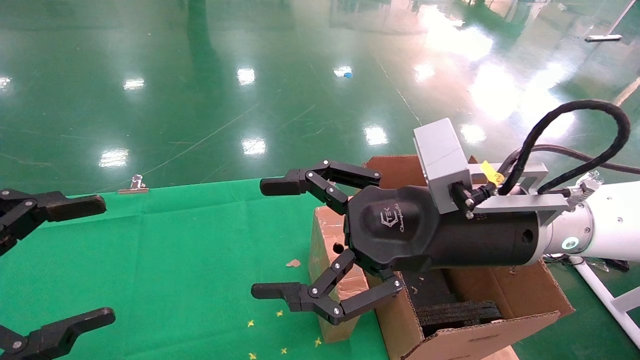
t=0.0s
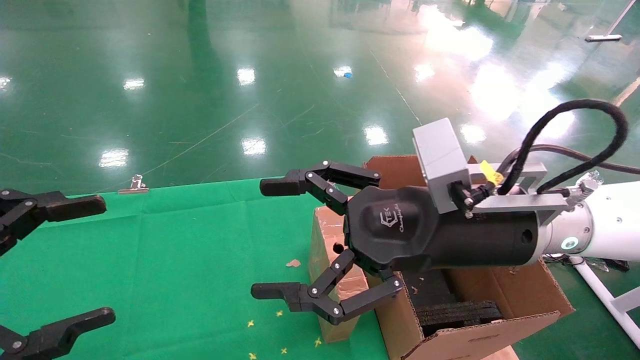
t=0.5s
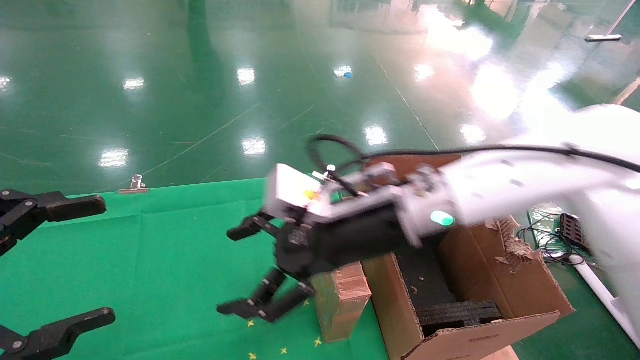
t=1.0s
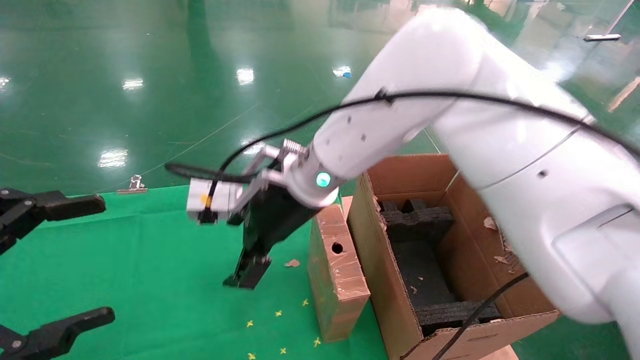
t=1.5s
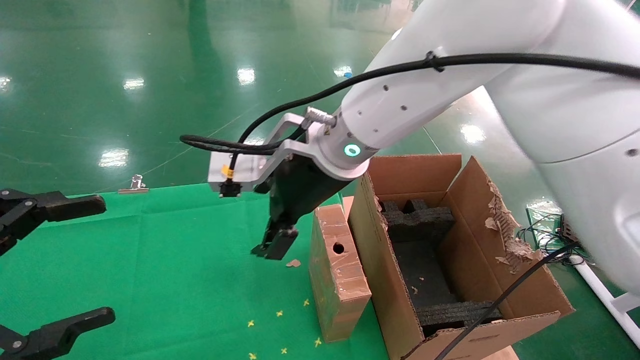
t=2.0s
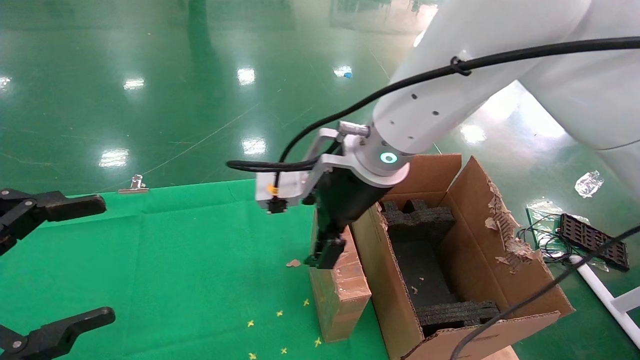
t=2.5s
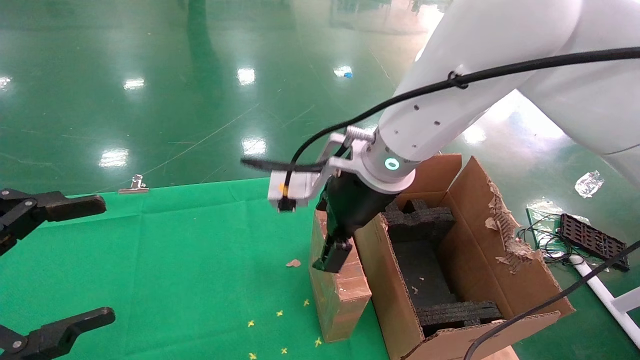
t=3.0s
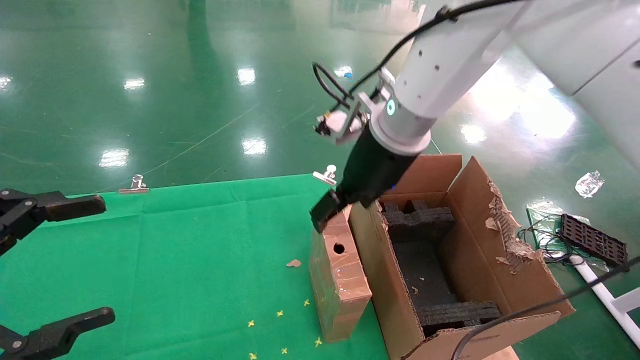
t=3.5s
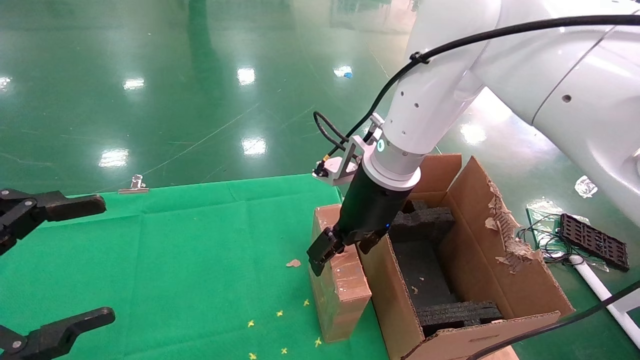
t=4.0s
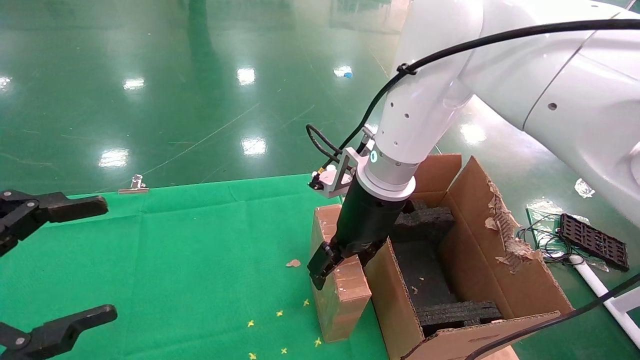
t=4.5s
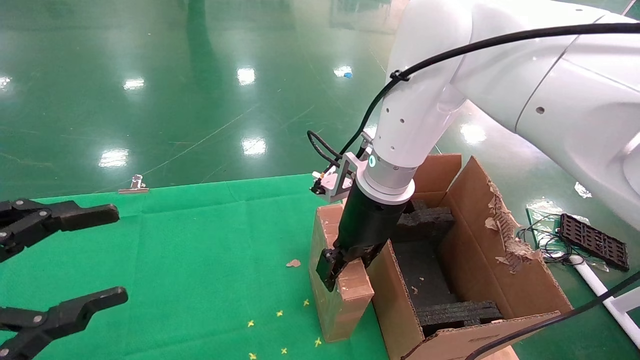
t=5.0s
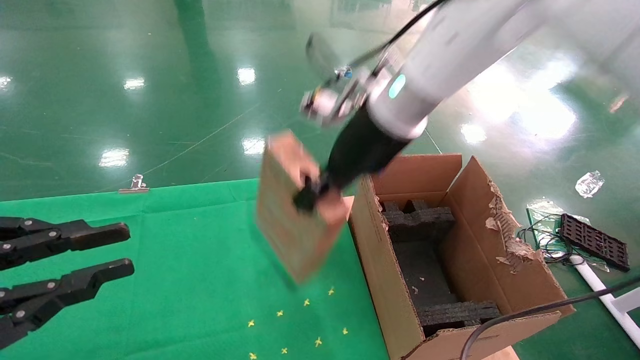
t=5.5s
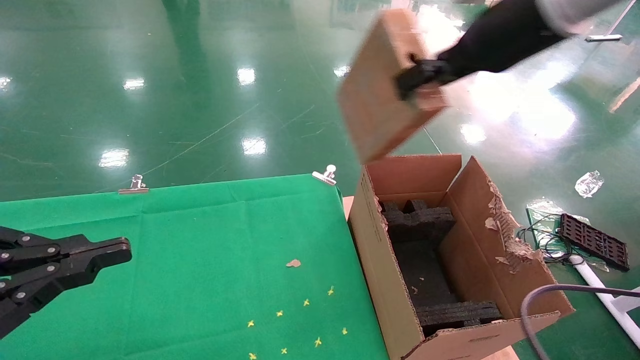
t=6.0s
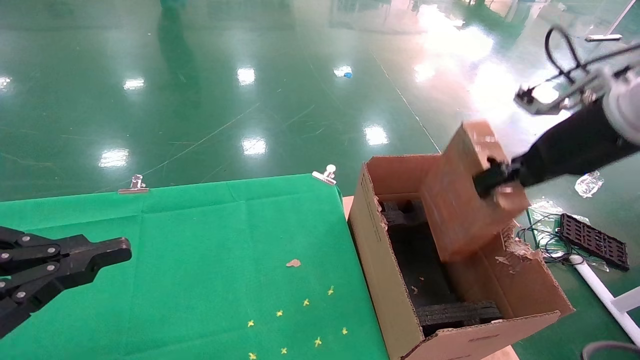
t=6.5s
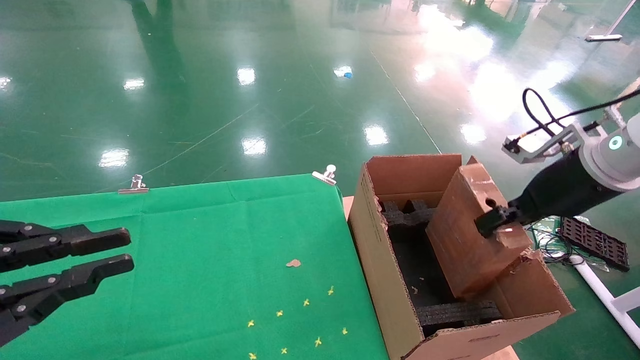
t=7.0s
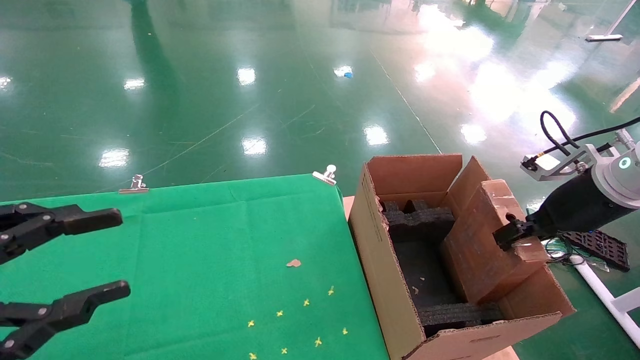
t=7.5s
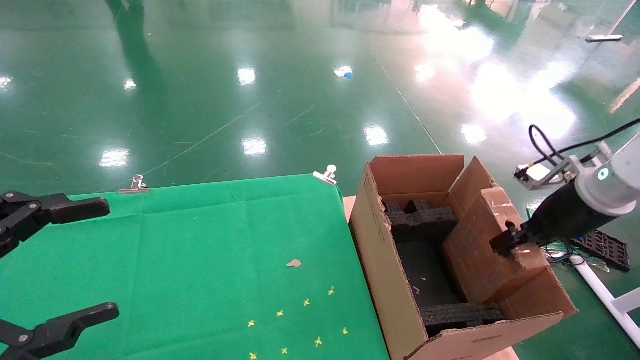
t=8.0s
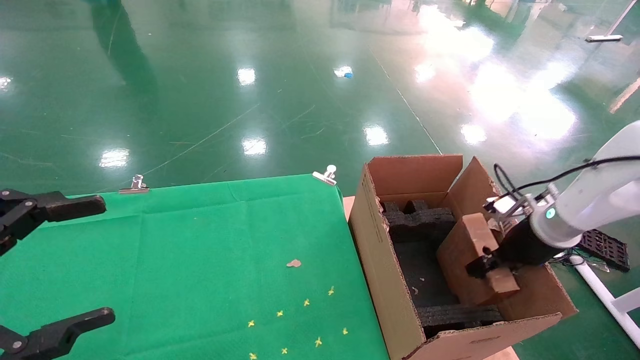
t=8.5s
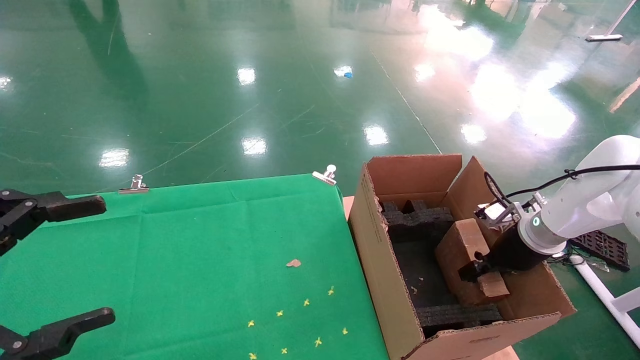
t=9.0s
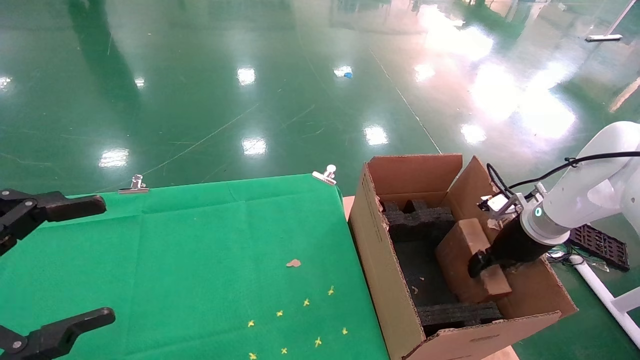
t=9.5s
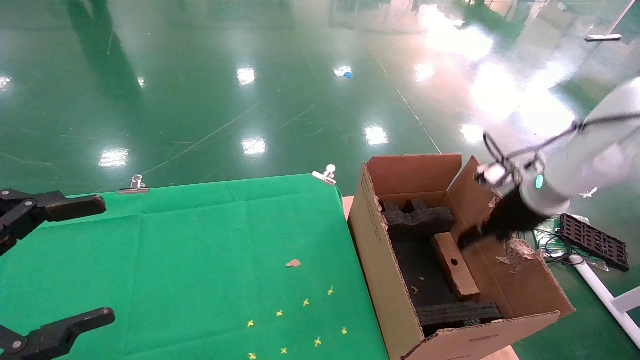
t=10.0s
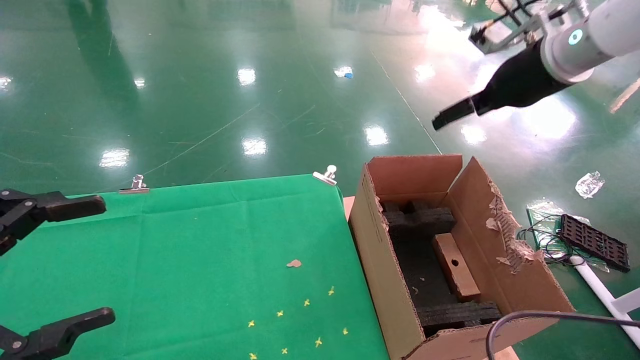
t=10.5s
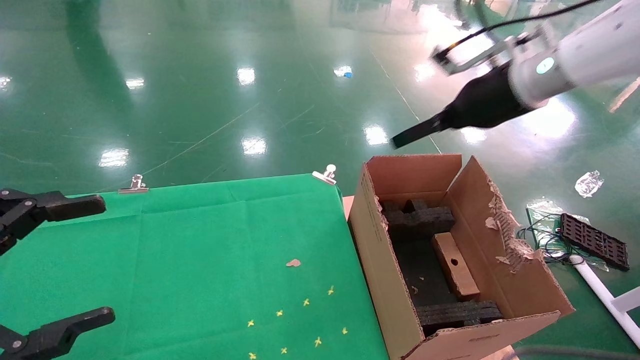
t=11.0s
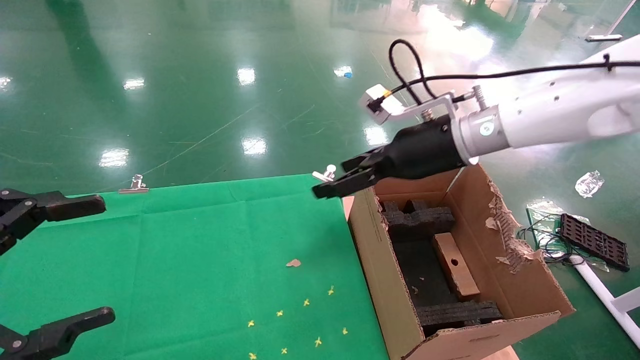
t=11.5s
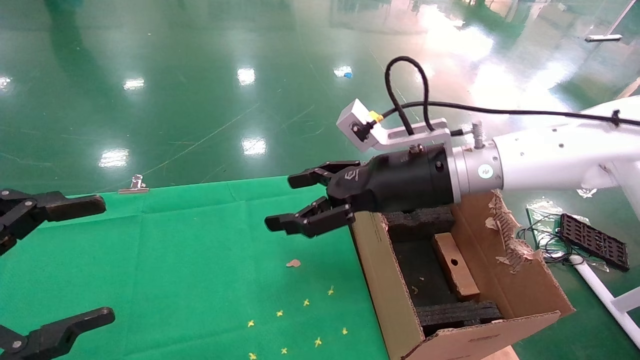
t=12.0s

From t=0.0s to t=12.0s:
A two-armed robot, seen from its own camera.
Task of the whole recording: using a robotic arm to pick up a cardboard box and palace it the carton.
Step, from t=1.0s to t=5.0s: Pick up the mouse and the power cord paper box.
Step, from t=5.5s to t=9.5s: Place the mouse and the power cord paper box into the container.
From t=0.0s to t=2.0s: The right gripper is displaced to the left and forward by about 20 cm.
From t=2.0s to t=4.0s: The right gripper travels to the right by some 10 cm.
From t=4.0s to t=6.0s: The right gripper heads upward and to the right, covering approximately 20 cm, and closes its fingers; the left gripper closes.
From t=6.0s to t=8.0s: The left gripper opens; the right gripper heads downward and to the right, covering roughly 25 cm.
From t=8.0s to t=10.0s: The right gripper goes some 5 cm forward, travels downward and back again, some 10 cm each way, and opens its fingers.
From t=10.0s to t=12.0s: The right gripper moves to the left, some 20 cm.

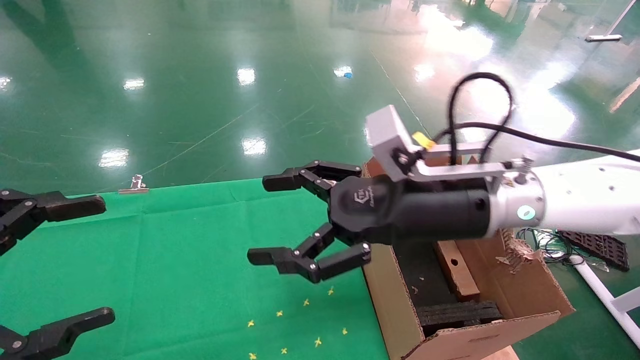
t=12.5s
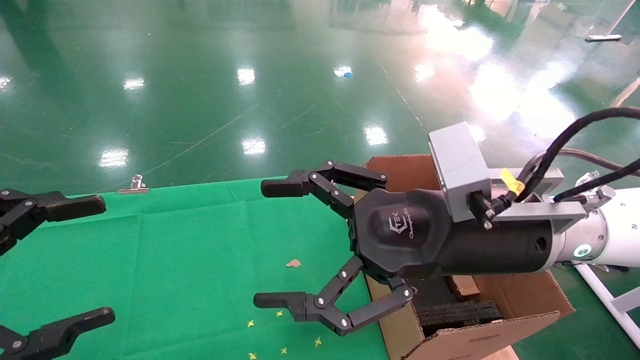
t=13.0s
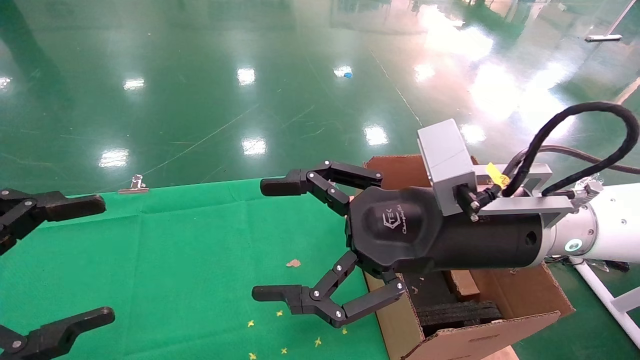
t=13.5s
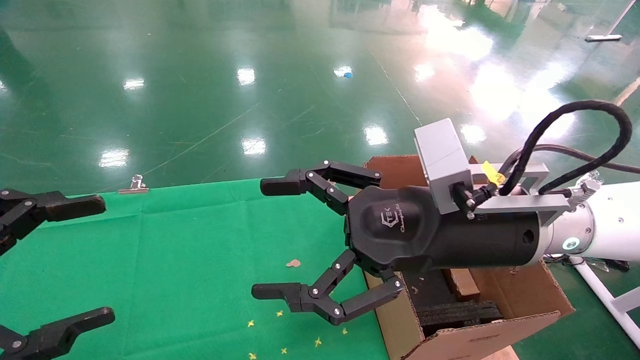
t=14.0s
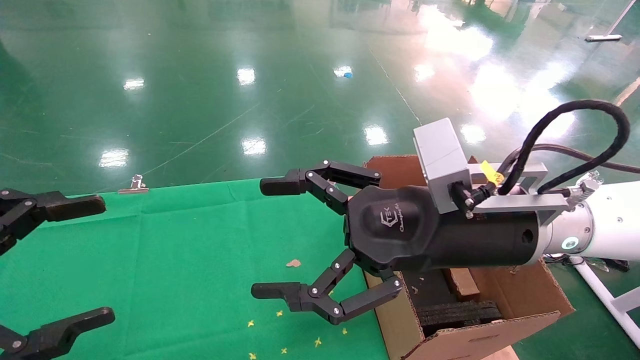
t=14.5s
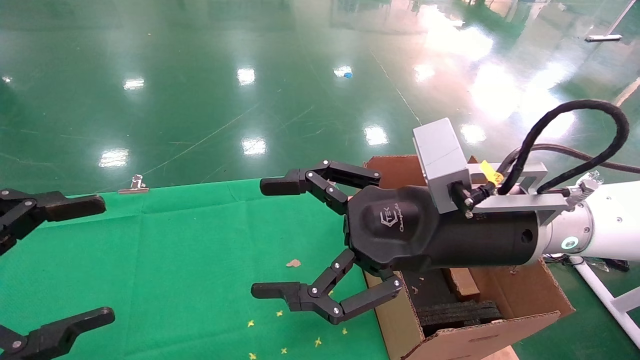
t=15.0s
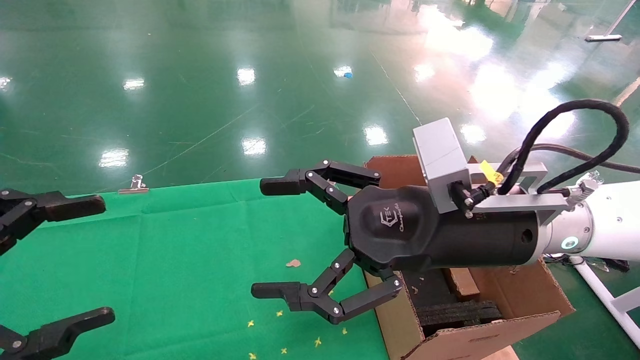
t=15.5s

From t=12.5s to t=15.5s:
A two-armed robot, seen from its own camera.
Task of the whole recording: using a robotic arm to pick up a cardboard box and palace it the carton.
From t=12.5s to t=14.0s: There are only small adjustments of the grippers.
From t=14.0s to t=15.5s: Both grippers stay about where they are.

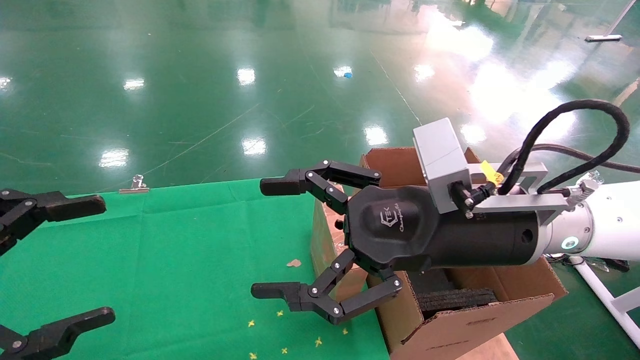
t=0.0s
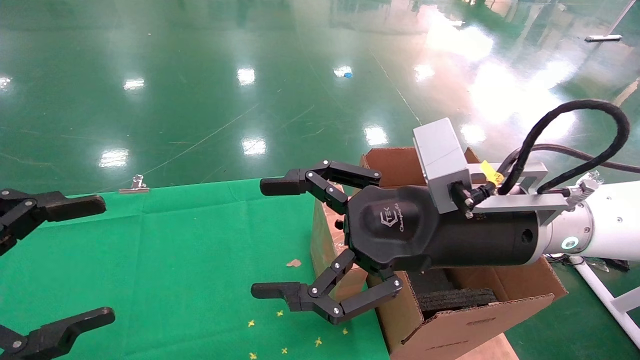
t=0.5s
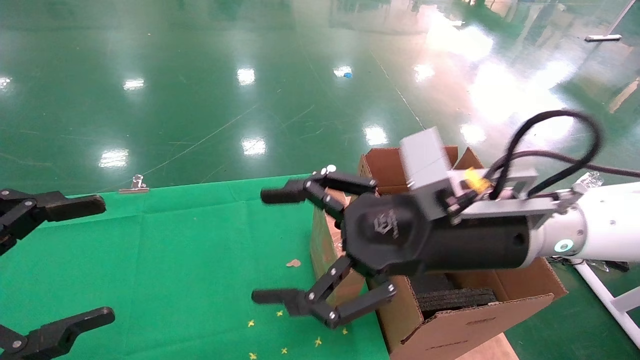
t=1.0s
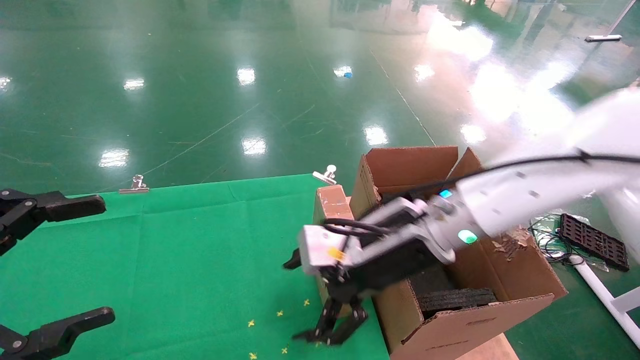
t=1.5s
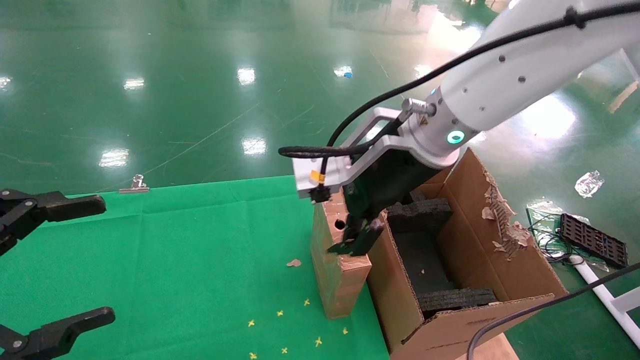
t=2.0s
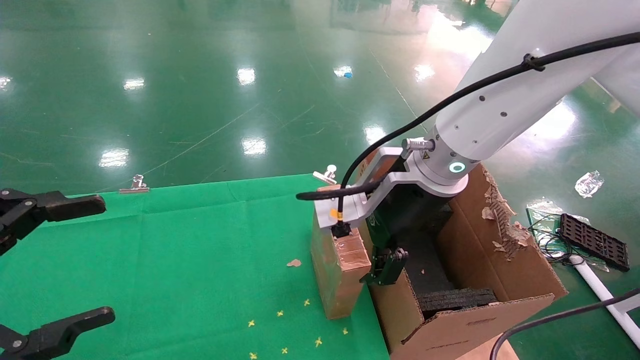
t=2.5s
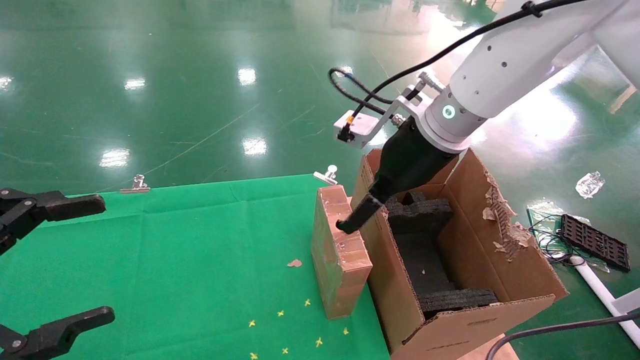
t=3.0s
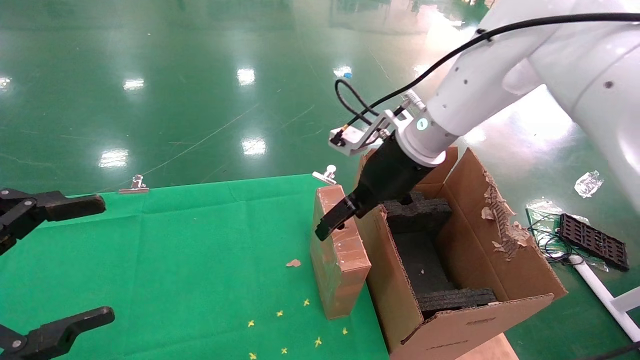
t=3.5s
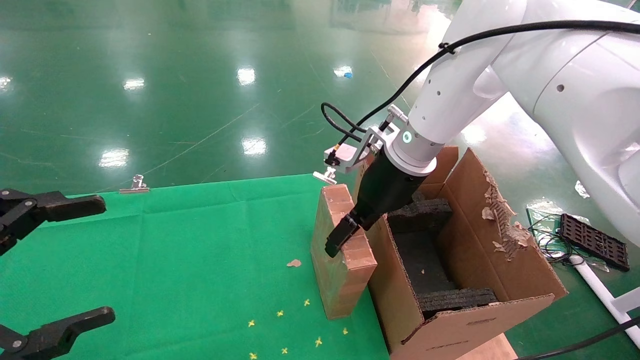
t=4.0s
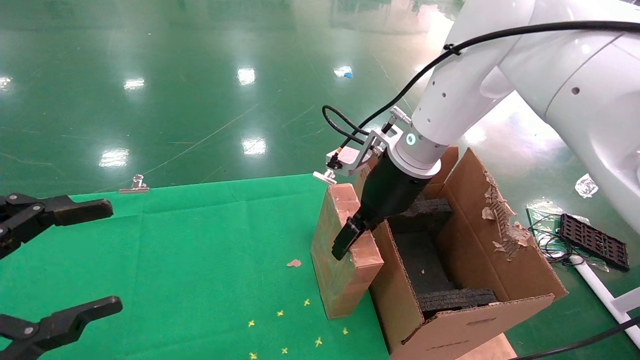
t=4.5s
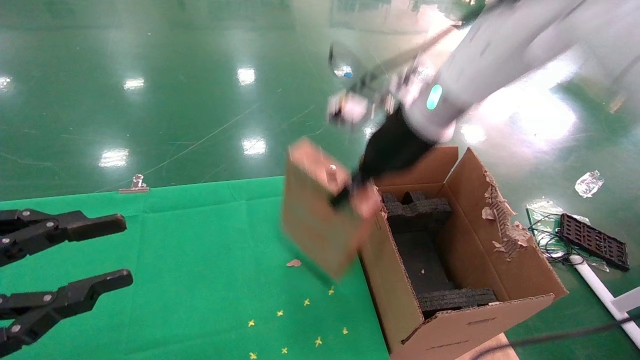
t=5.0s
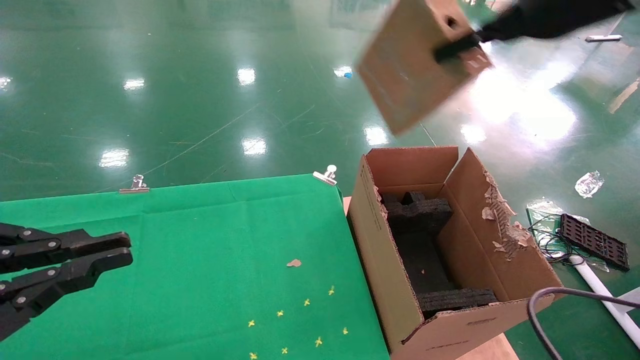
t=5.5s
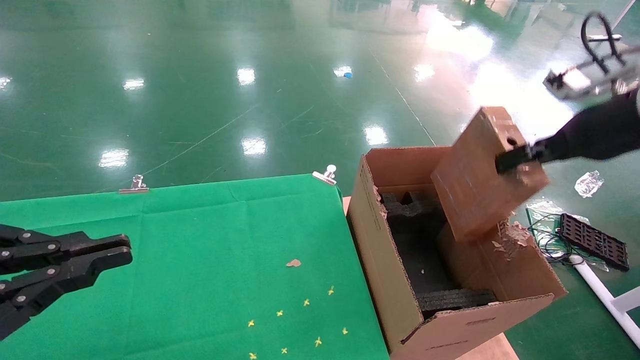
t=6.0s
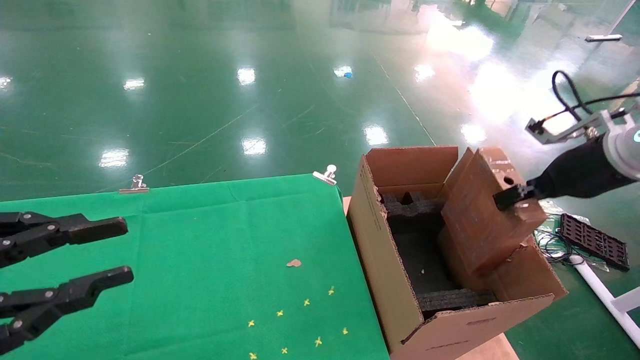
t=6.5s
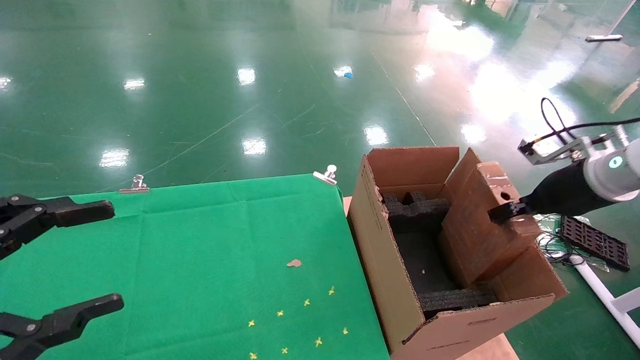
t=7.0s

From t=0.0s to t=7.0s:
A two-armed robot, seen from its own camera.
Task of the whole recording: using a robotic arm to pick up a cardboard box and palace it the carton.
Step, from t=1.0s to t=4.5s: Pick up the mouse and the power cord paper box.
From t=0.0s to t=2.0s: The right gripper goes approximately 10 cm forward and to the left.
From t=2.0s to t=3.5s: The right gripper is displaced forward by some 10 cm.
From t=3.5s to t=5.0s: The right gripper moves upward, approximately 5 cm, and closes. Meanwhile the left gripper closes.
From t=5.0s to t=7.0s: The left gripper closes and opens again, while the right gripper shifts approximately 25 cm to the right and downward.
